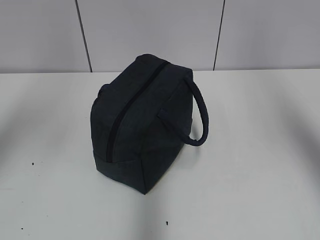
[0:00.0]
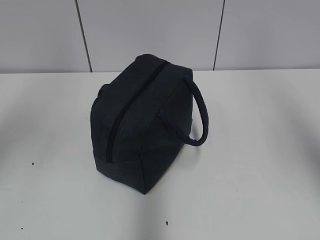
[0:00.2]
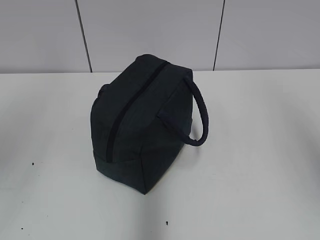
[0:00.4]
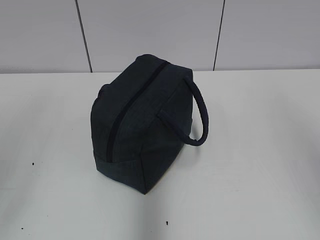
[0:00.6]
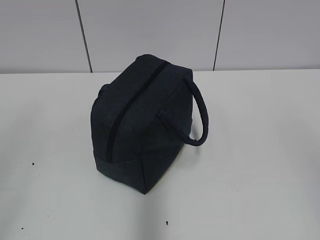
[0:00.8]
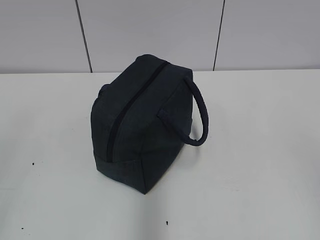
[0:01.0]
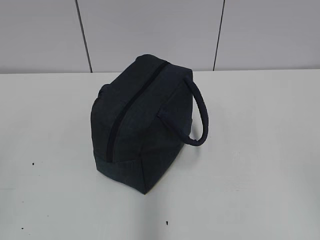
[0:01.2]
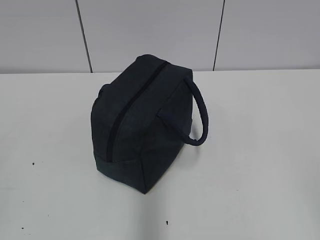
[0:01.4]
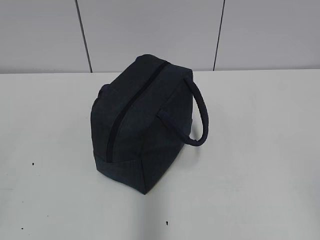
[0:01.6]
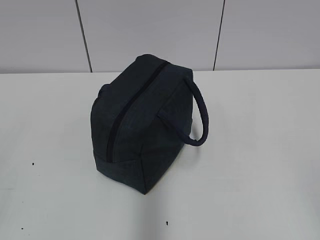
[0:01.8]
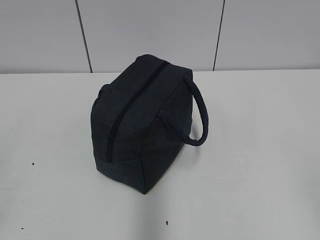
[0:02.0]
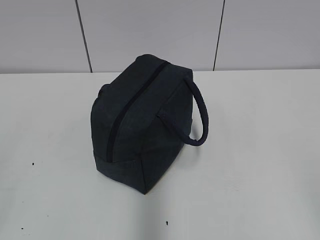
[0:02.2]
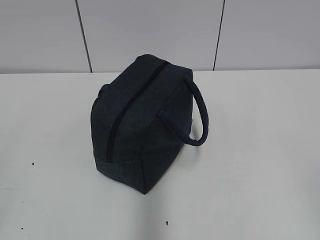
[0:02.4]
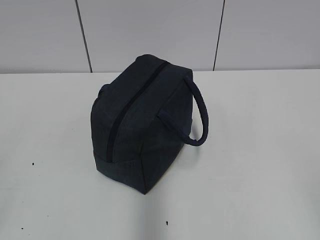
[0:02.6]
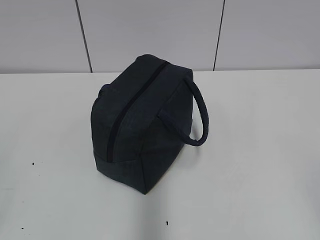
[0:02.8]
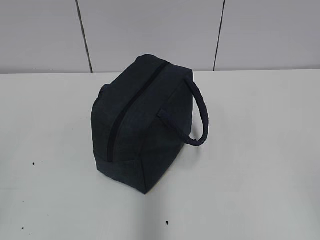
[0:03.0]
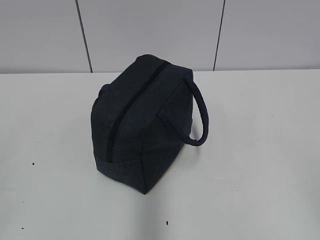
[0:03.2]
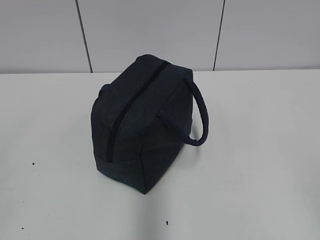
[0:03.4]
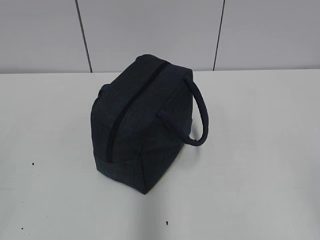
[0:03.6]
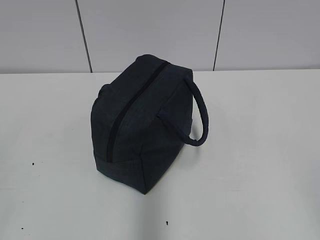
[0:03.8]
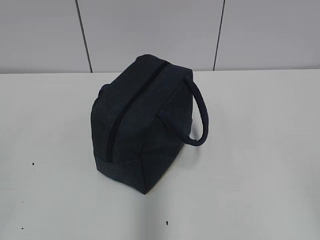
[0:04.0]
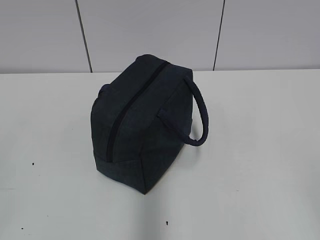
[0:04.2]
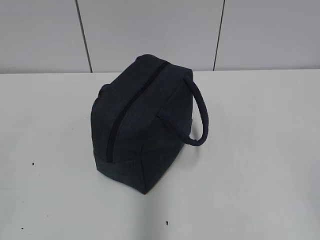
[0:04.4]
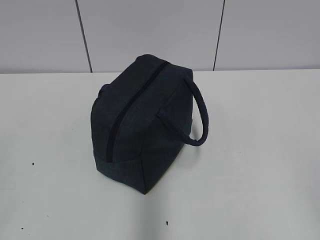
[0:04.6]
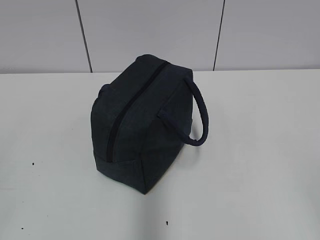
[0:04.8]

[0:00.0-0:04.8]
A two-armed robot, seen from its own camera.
0:00.0 to 0:01.6: The right gripper moves downward and backward, roughly 30 cm. The left gripper is displaced backward and downward by approximately 30 cm.
0:03.2 to 0:04.8: Both grippers stay about where they are.
